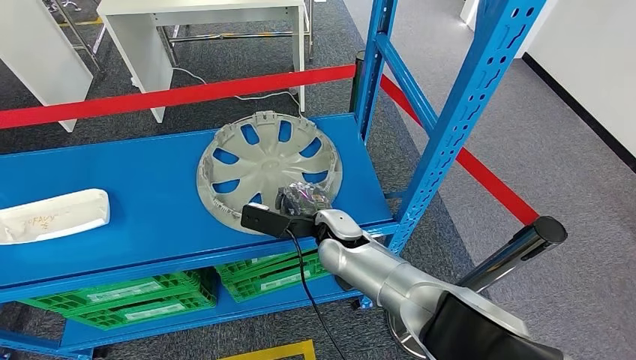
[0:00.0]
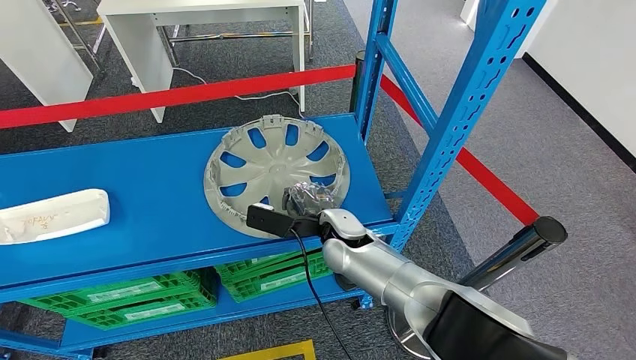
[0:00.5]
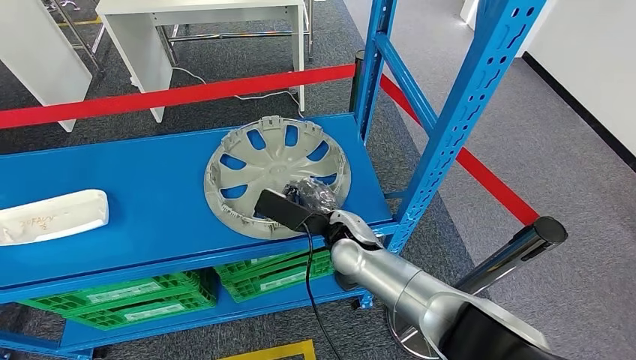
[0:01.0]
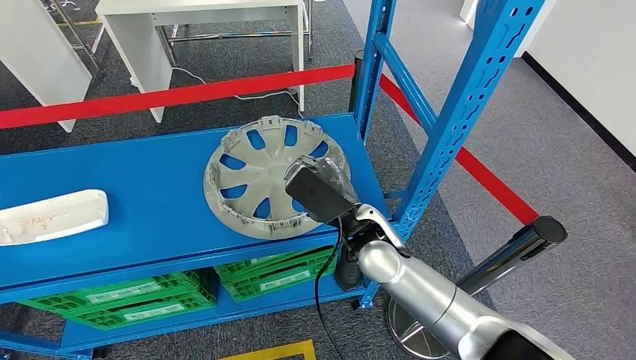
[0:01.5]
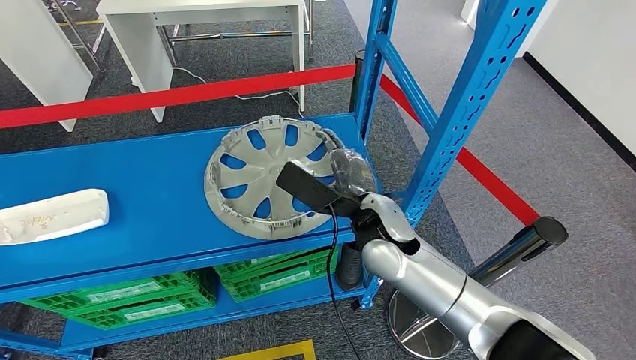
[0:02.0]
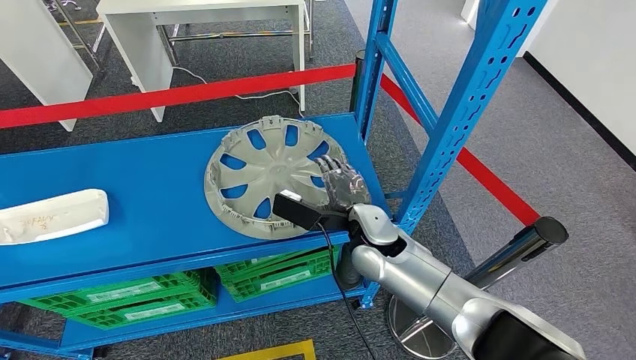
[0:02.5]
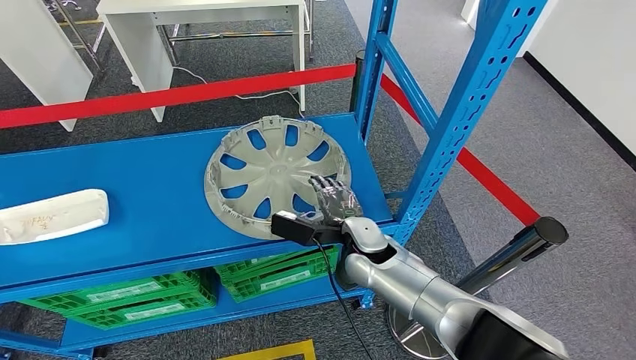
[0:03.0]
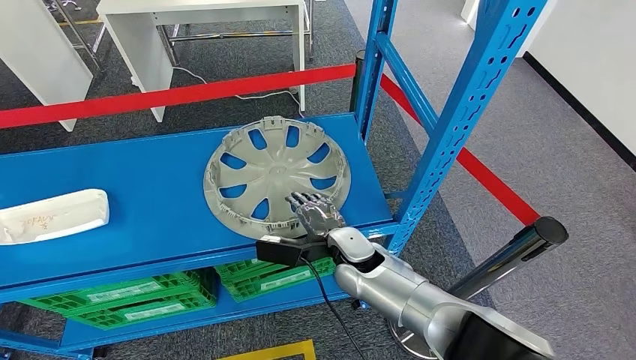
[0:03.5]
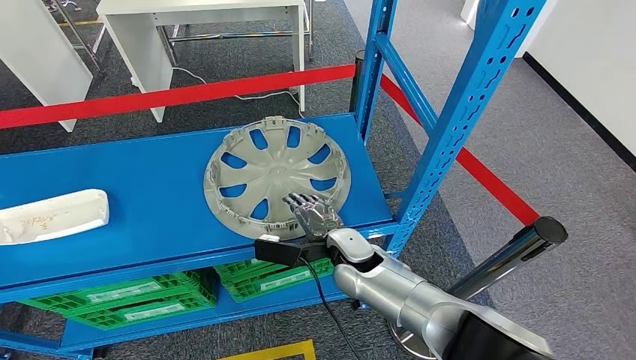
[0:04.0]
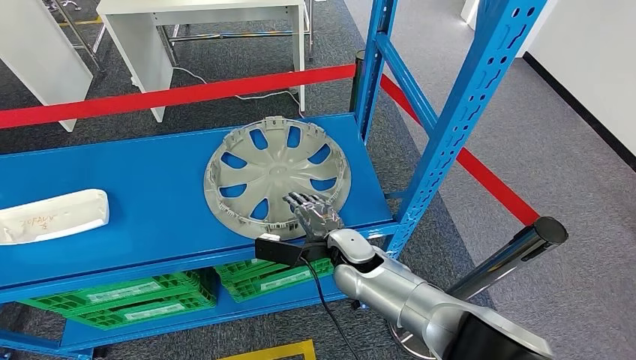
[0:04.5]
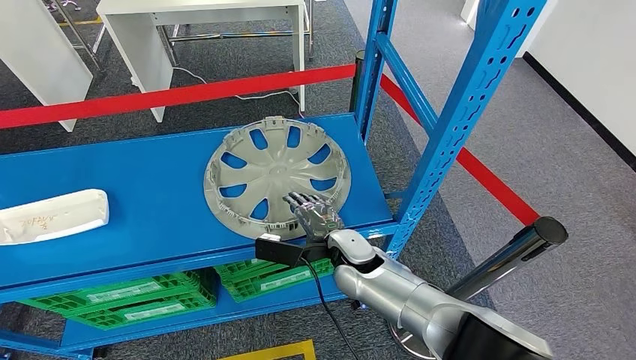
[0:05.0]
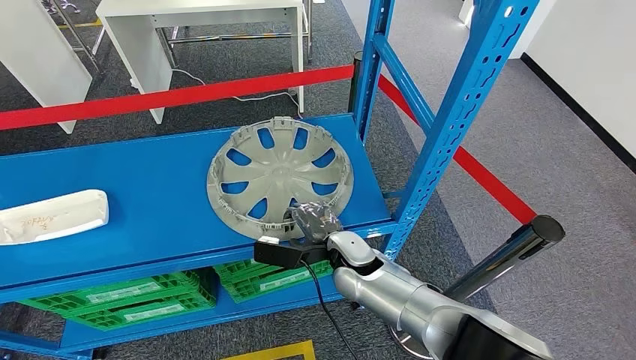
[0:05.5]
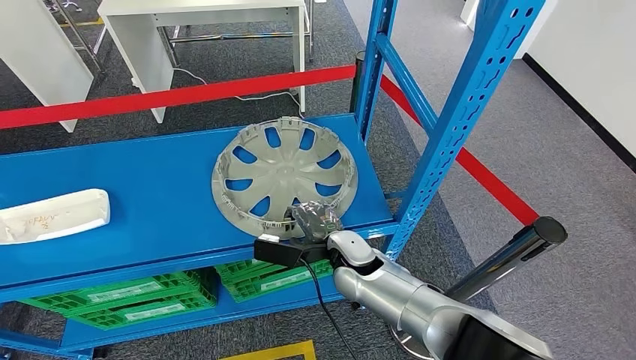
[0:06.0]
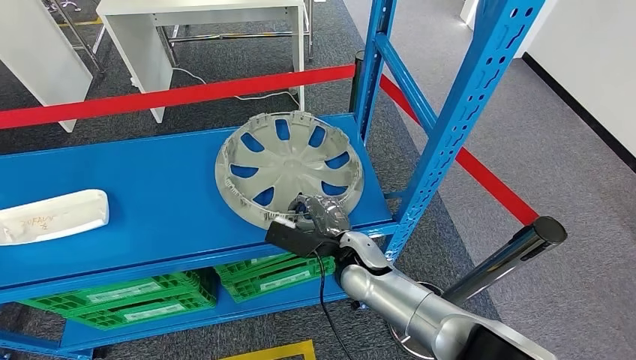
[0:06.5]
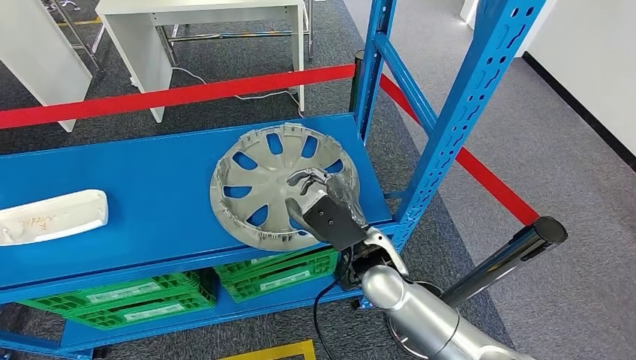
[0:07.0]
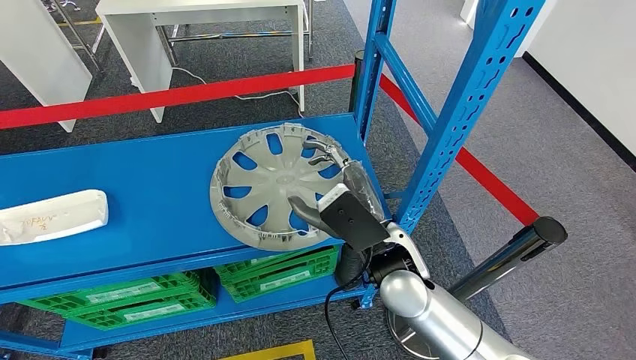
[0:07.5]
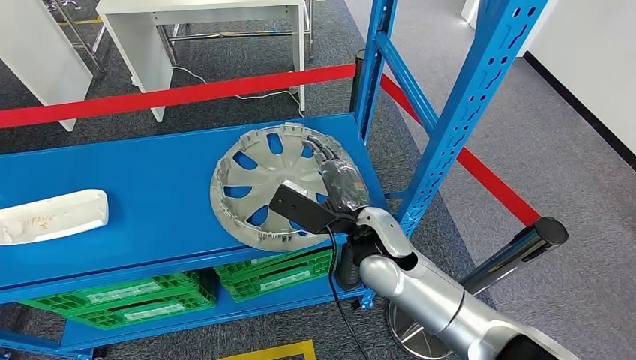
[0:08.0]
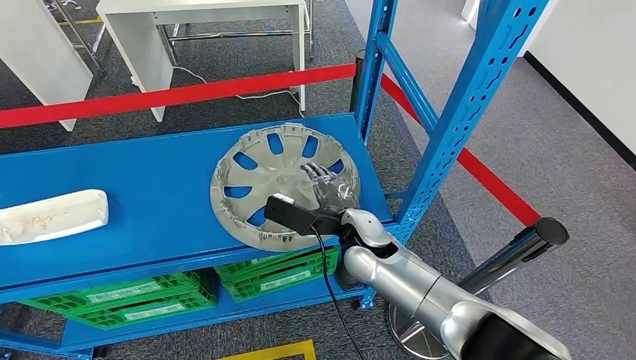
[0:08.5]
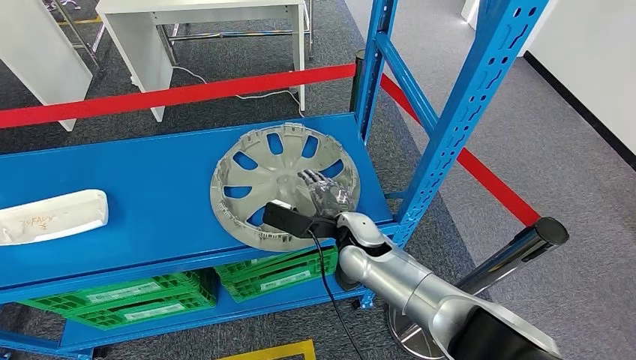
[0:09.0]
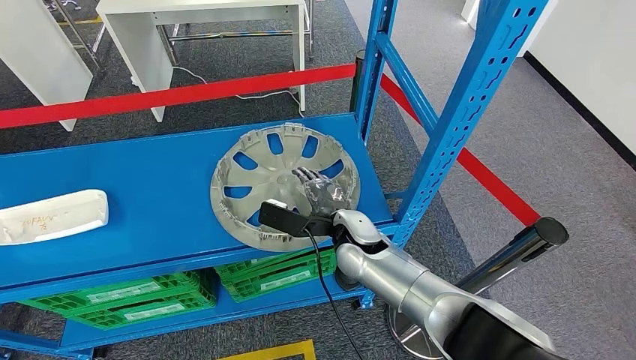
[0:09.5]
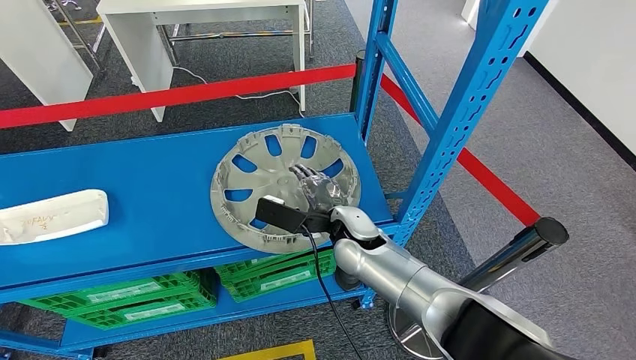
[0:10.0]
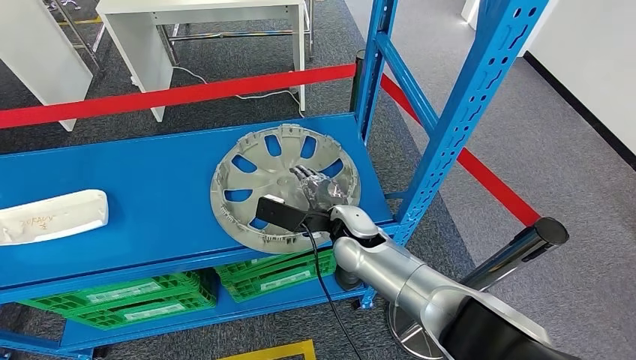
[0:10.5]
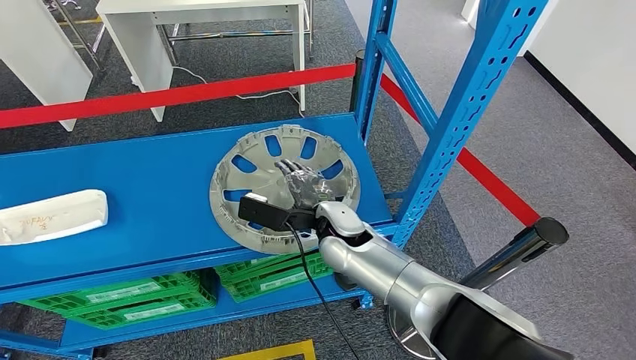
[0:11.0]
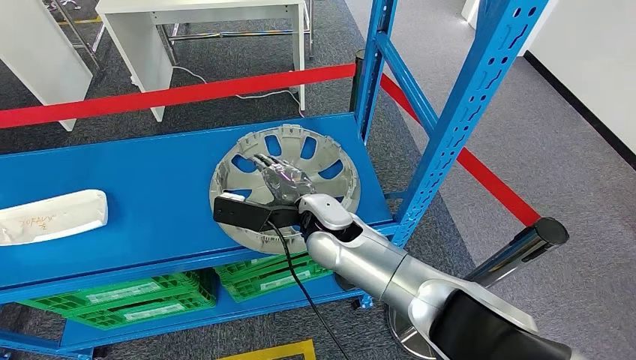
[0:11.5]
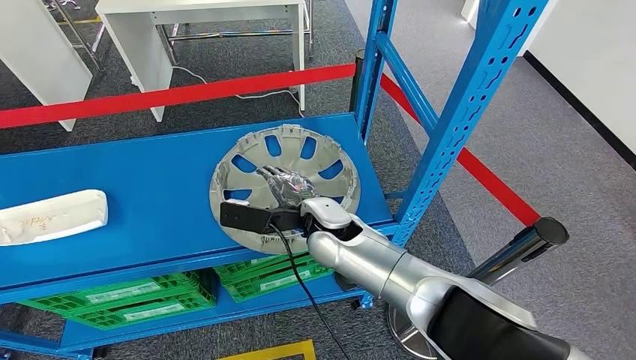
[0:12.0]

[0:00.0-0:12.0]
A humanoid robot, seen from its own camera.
0:00.0 to 0:02.0: The right hand shifts about 10 cm upward.
0:02.0 to 0:04.0: The right hand travels downward by approximately 10 cm.
0:04.0 to 0:06.0: Neither hand changes place.
0:06.0 to 0:08.0: The right hand moves upward, approximately 10 cm.
0:08.0 to 0:10.0: The right hand goes about 5 cm downward.
0:10.0 to 0:12.0: The left hand moves forward, approximately 5 cm, while the right hand changes place by about 5 cm.

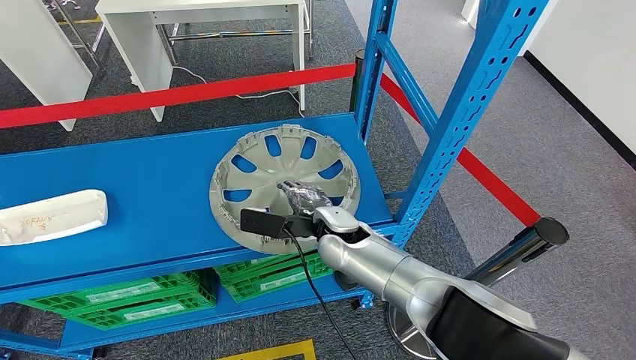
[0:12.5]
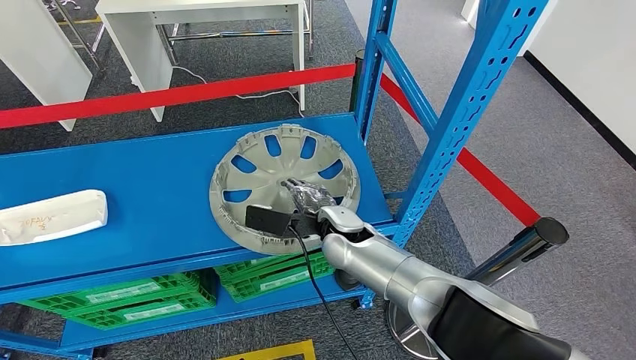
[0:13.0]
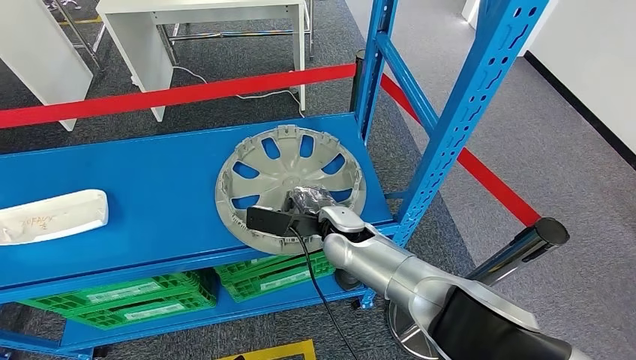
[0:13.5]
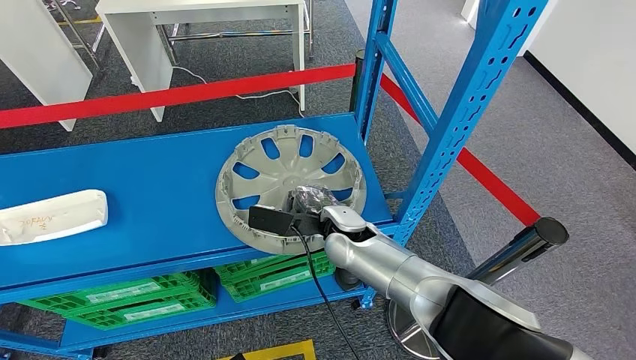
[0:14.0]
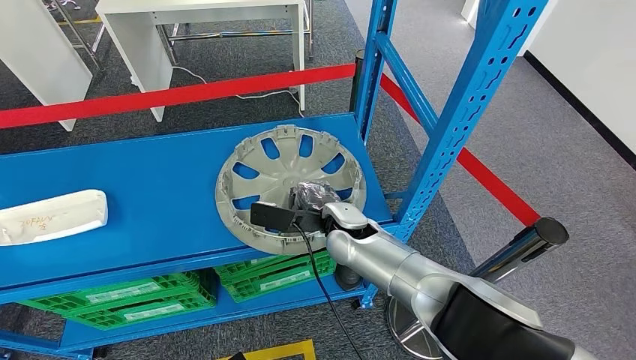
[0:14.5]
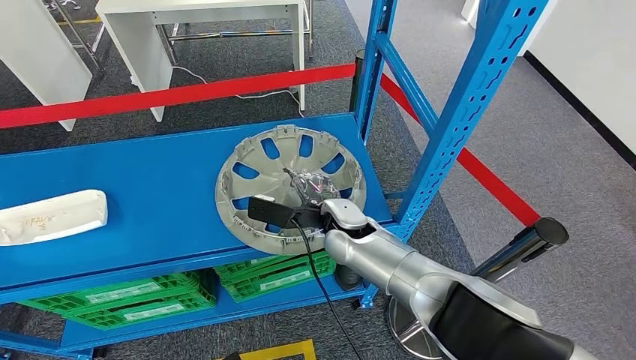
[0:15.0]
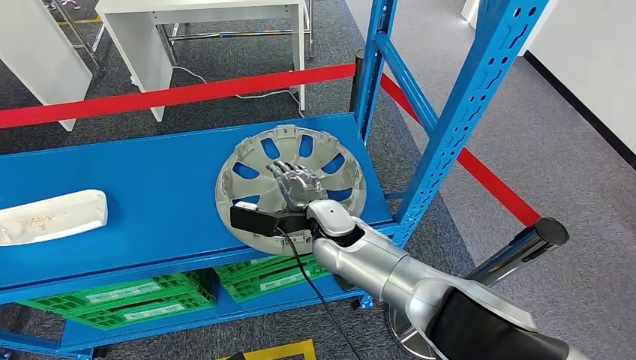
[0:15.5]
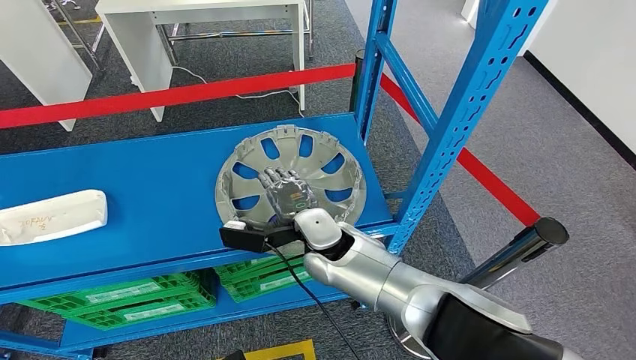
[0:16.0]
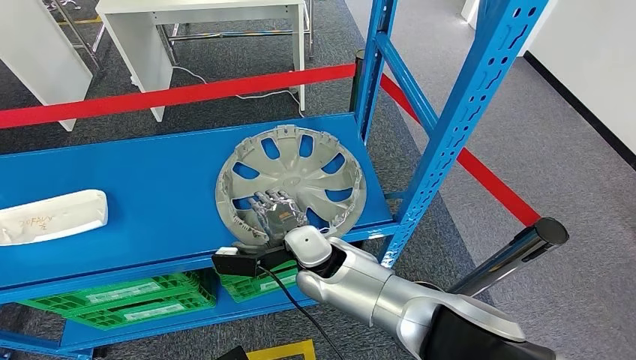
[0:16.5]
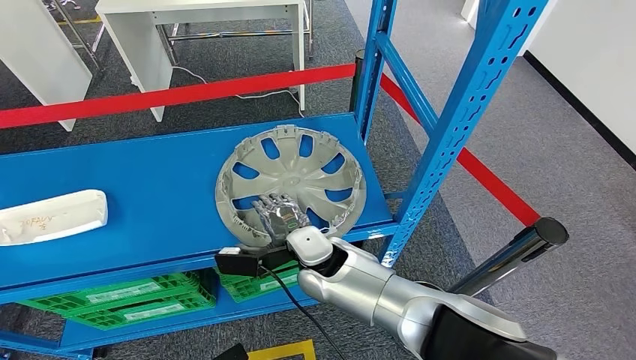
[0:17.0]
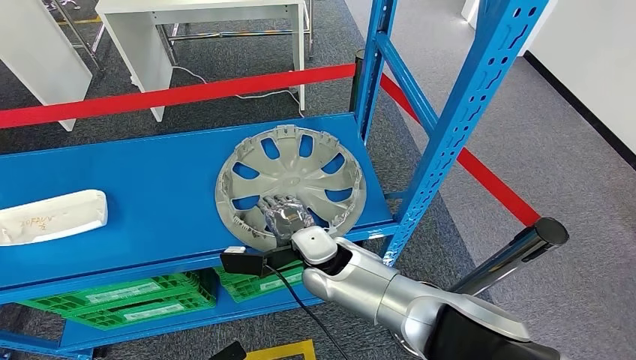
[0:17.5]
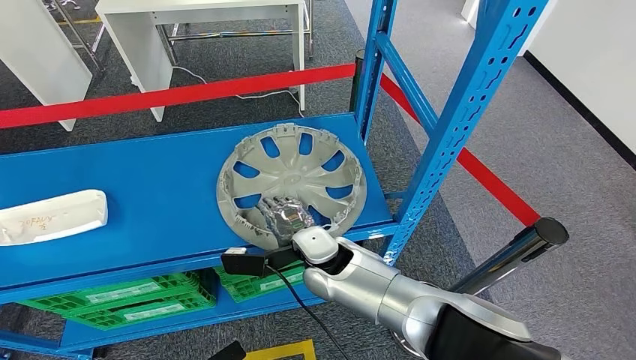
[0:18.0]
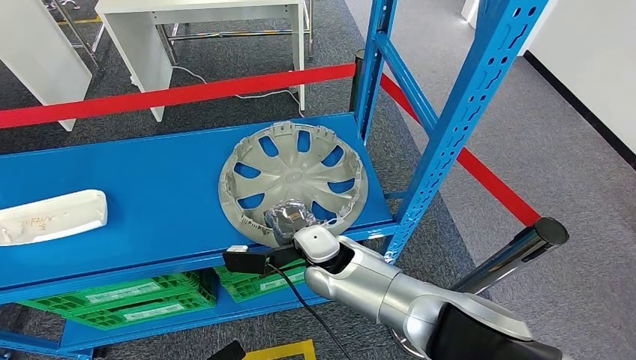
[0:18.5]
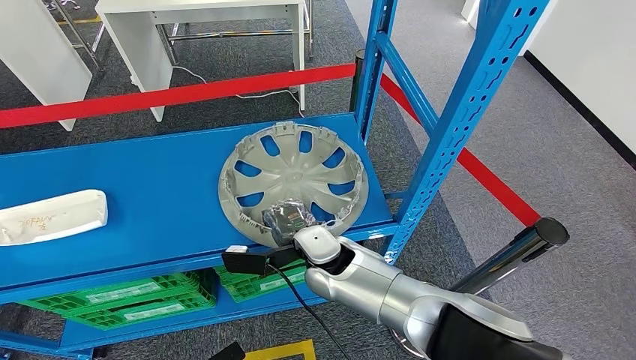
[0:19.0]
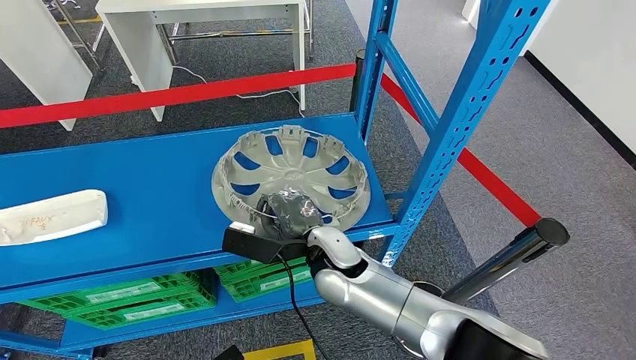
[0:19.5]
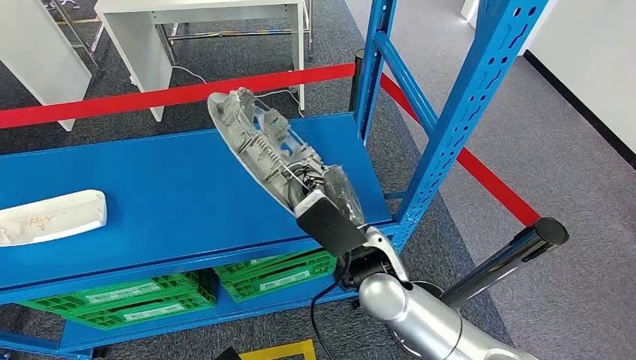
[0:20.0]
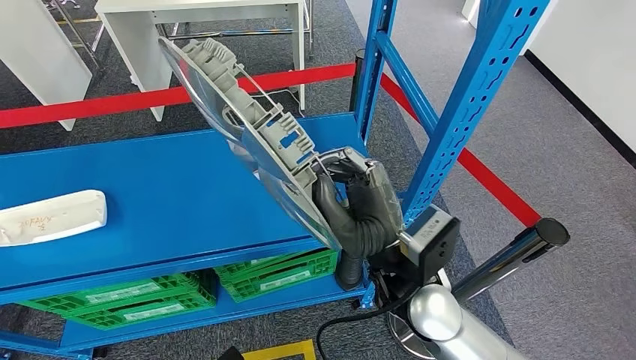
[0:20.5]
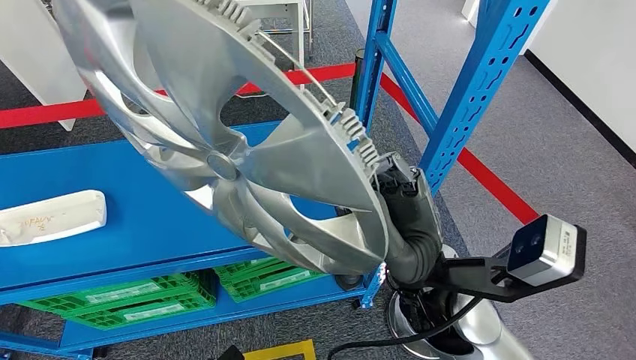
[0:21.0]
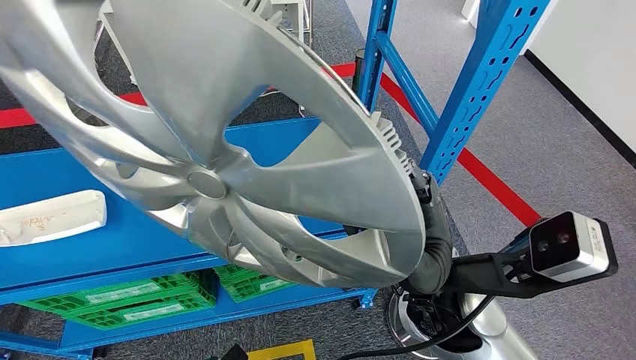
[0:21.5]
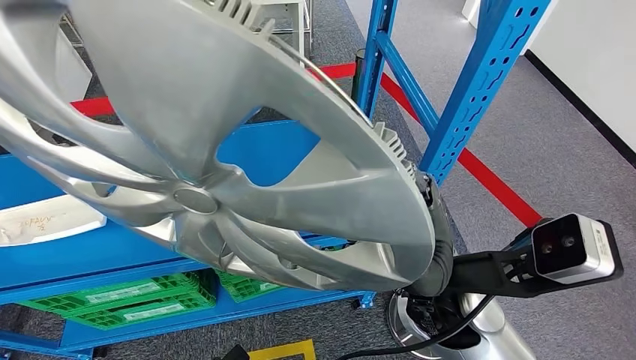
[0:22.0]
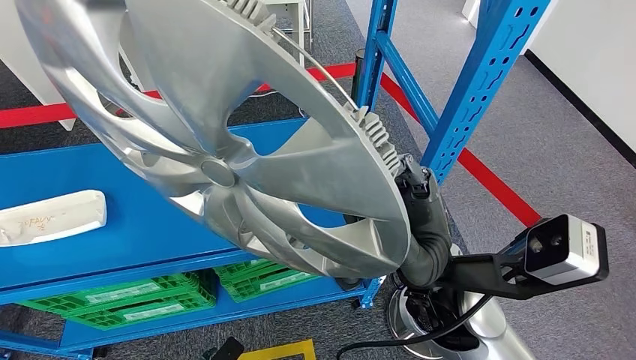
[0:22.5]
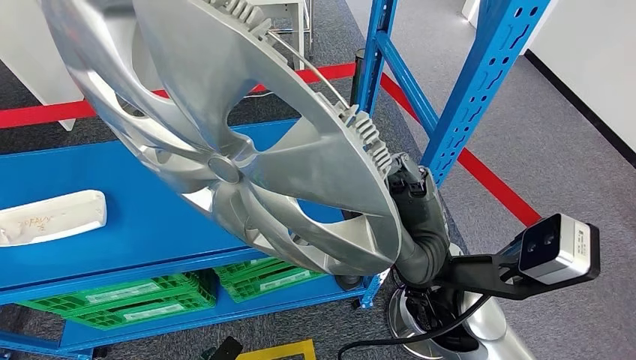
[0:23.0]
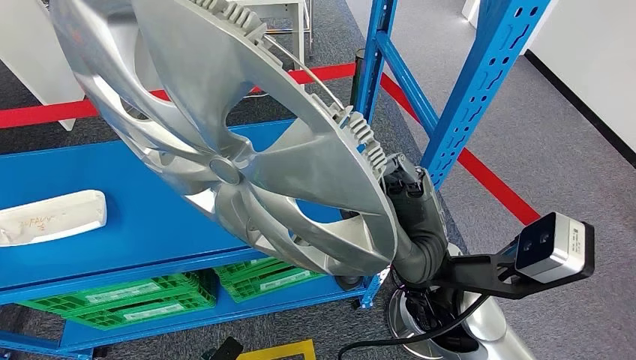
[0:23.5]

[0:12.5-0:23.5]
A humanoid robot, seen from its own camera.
Step, 0:12.5 to 0:20.5: Pick up the large material from the shelf.
0:12.5 to 0:14.5: The hands make only small movements.
0:14.5 to 0:16.0: The right hand heads to the left, covering approximately 5 cm.
0:16.0 to 0:18.0: There are only small adjustments of the hands.
0:18.0 to 0:20.0: The right hand shifts about 10 cm upward and backward.
